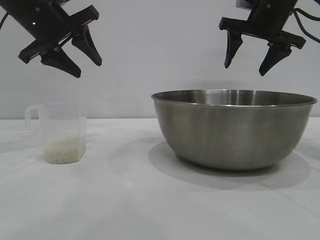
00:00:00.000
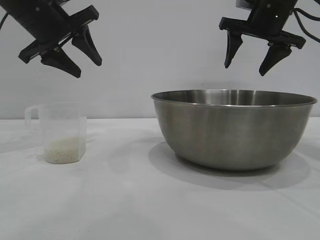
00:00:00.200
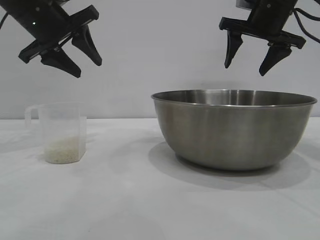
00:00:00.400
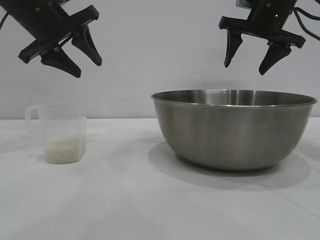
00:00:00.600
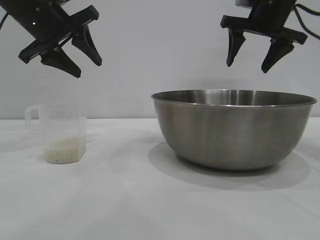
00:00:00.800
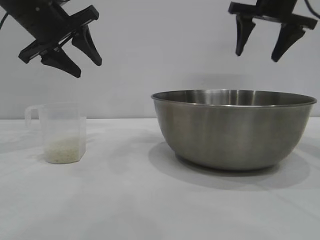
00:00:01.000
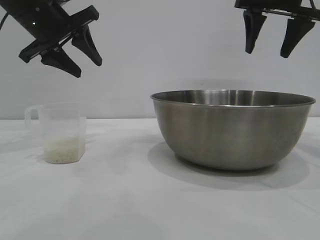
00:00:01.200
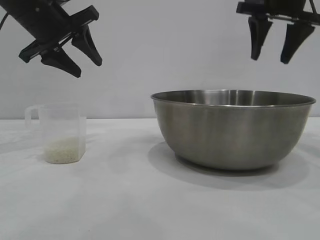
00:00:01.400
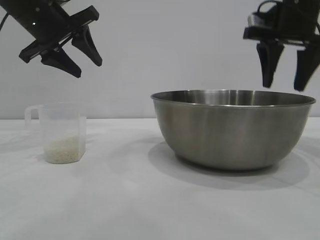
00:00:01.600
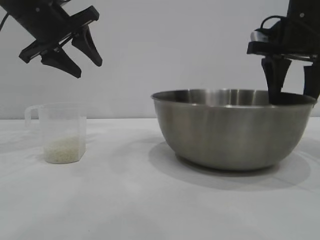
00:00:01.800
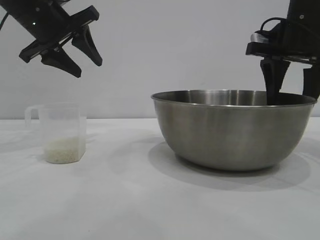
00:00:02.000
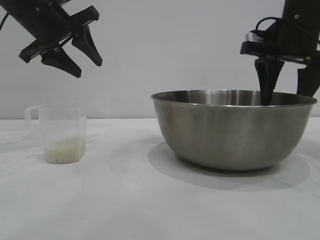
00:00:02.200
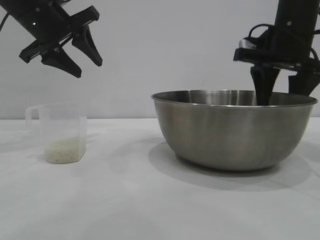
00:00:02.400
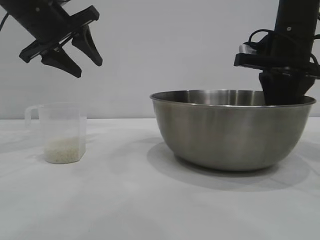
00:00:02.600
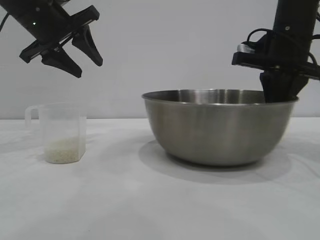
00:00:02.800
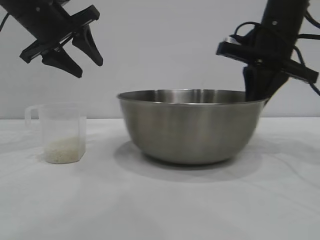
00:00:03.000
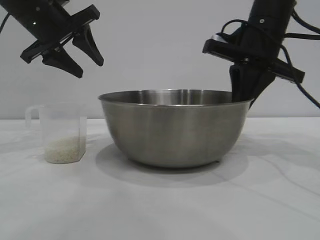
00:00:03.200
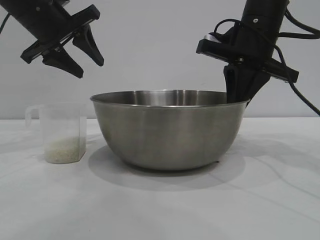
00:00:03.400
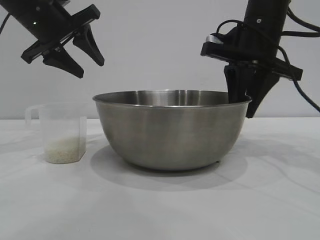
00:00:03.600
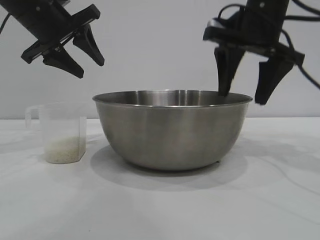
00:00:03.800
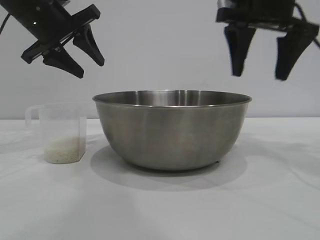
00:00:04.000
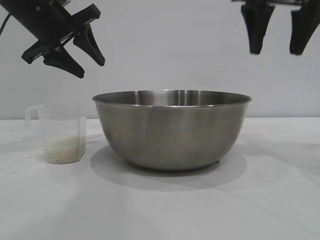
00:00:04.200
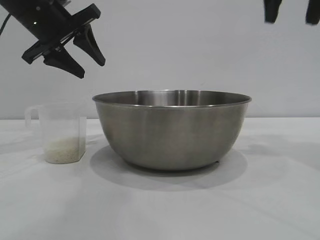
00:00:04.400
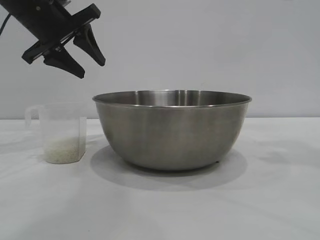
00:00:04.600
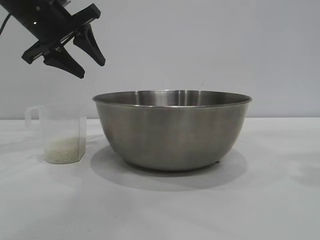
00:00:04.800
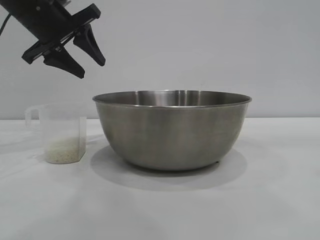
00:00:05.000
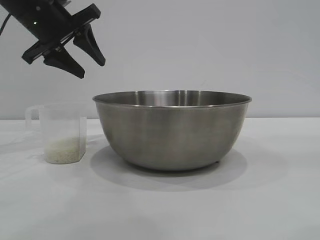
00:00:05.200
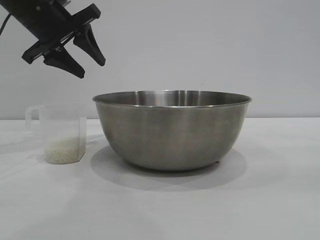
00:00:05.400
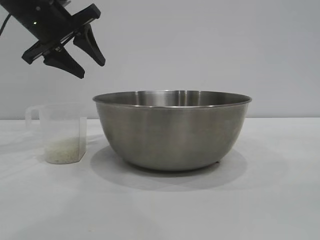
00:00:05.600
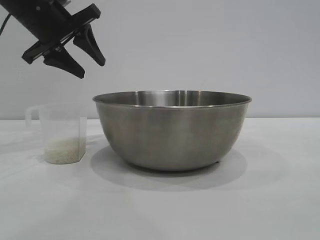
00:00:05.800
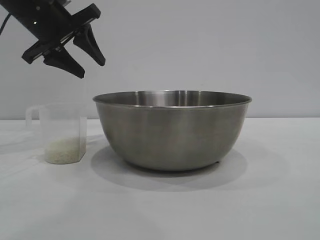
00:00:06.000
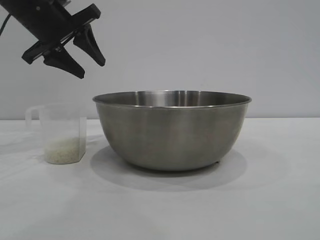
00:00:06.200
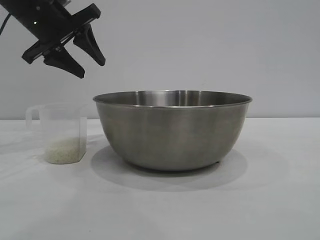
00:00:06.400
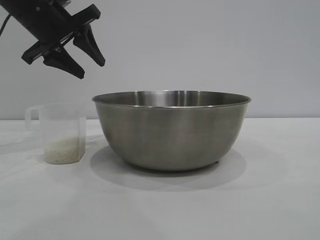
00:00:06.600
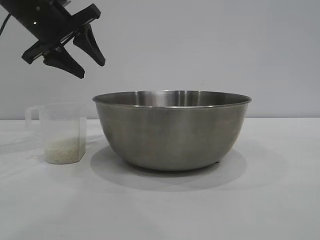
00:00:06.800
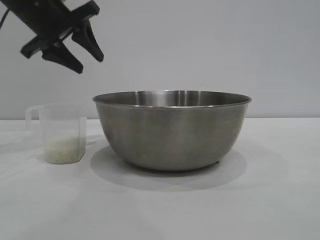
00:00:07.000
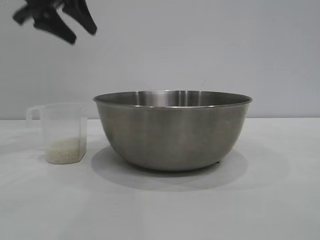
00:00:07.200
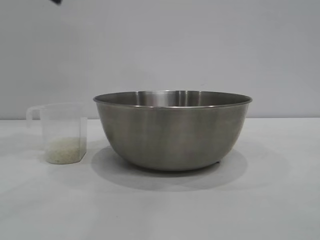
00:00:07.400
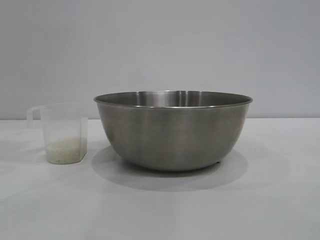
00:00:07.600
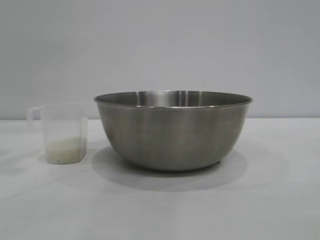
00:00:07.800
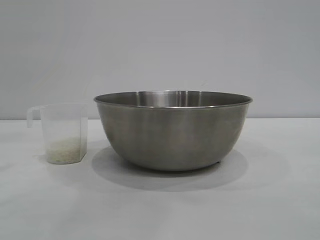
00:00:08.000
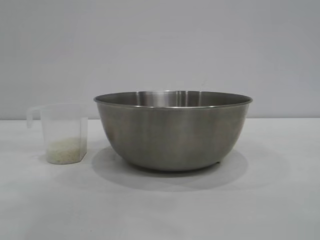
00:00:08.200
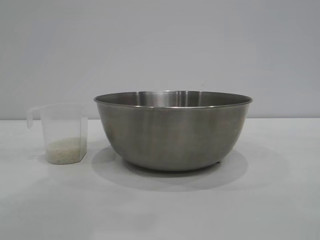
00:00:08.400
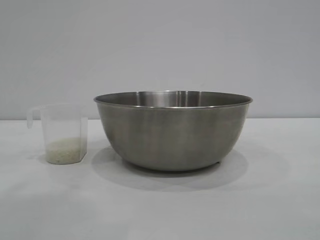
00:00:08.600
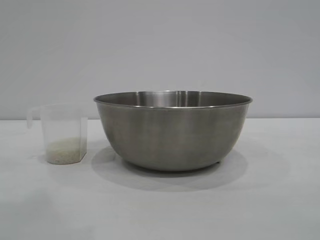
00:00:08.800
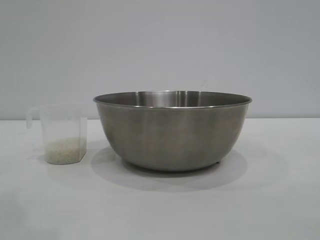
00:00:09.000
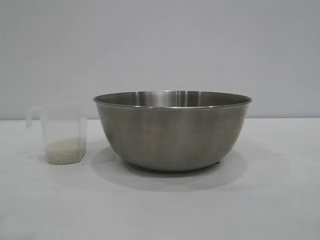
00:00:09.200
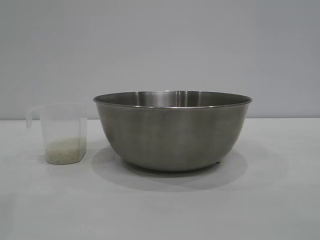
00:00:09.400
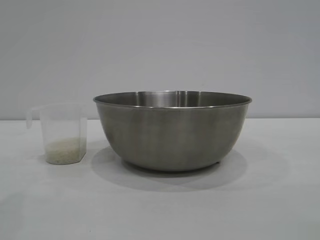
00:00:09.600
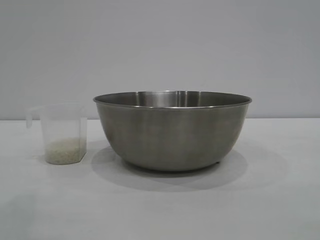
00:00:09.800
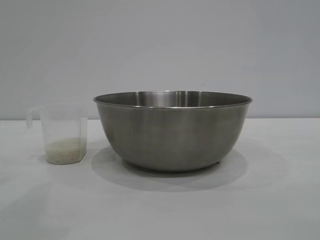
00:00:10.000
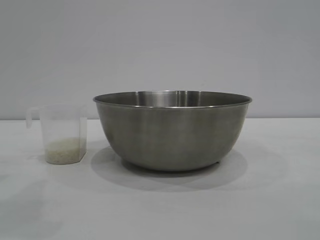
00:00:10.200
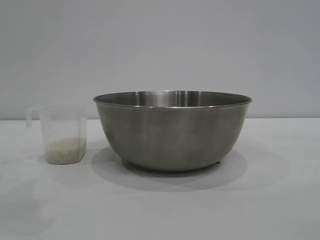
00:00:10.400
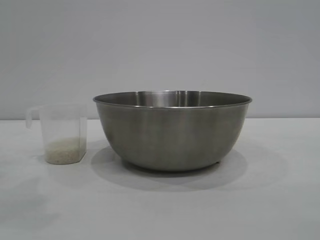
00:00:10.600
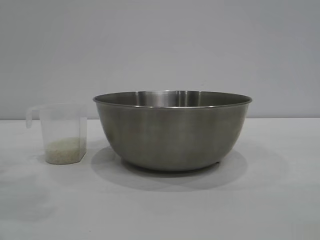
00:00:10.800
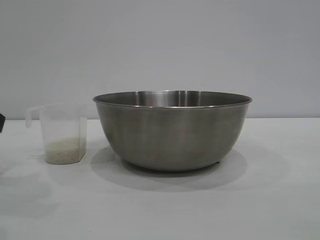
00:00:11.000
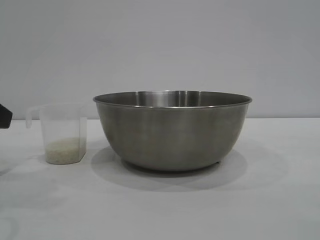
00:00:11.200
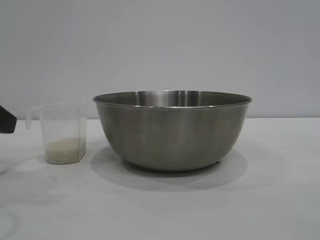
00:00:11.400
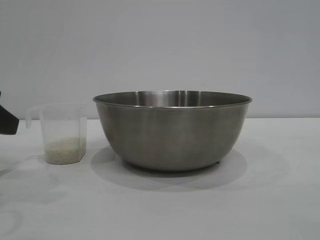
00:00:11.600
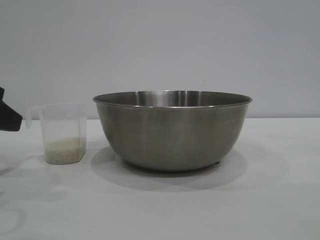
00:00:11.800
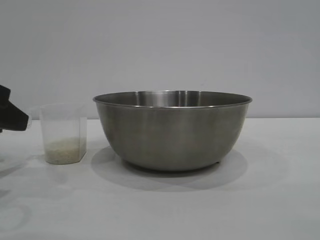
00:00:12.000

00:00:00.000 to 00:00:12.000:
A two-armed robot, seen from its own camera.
Task of the whole recording: the right gripper grasp the rice container and place it in the center of the table, the left gripper grasp the rice scoop and pour the rice into the rice container.
Step, 00:00:00.000 to 00:00:04.000: Move the bowl to the center of view with the right gripper.

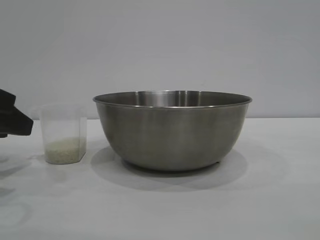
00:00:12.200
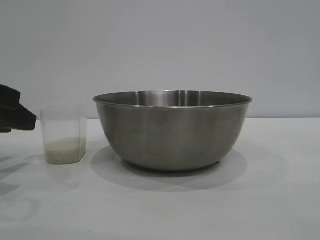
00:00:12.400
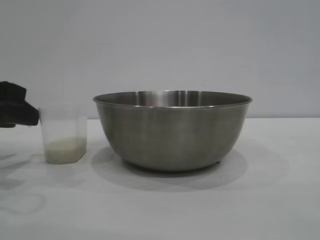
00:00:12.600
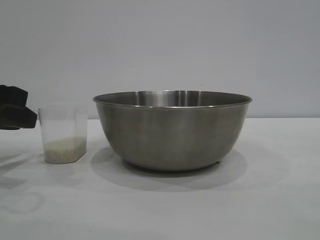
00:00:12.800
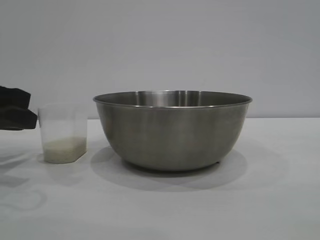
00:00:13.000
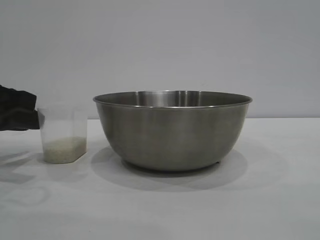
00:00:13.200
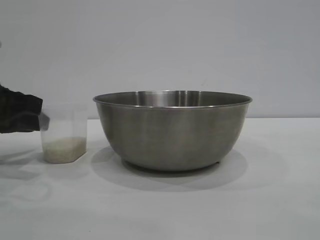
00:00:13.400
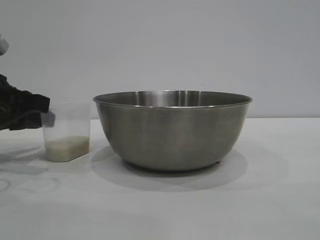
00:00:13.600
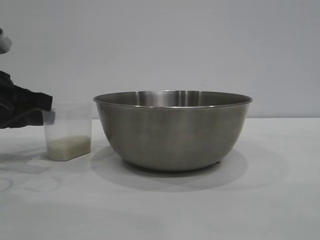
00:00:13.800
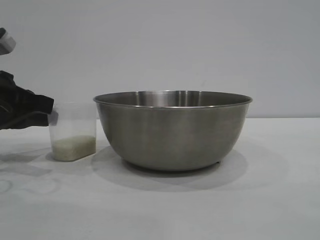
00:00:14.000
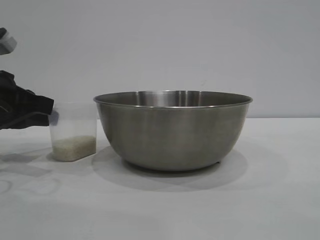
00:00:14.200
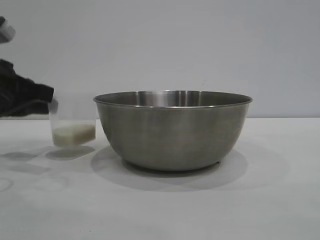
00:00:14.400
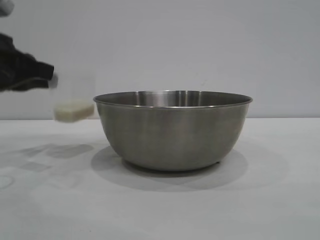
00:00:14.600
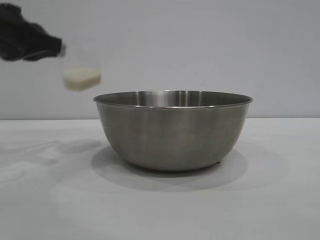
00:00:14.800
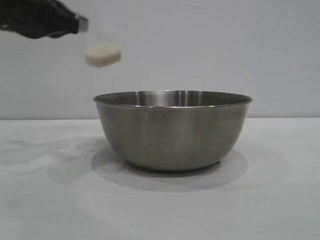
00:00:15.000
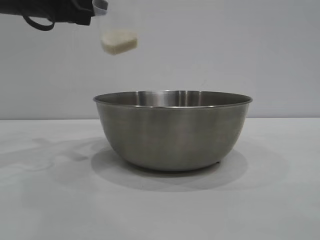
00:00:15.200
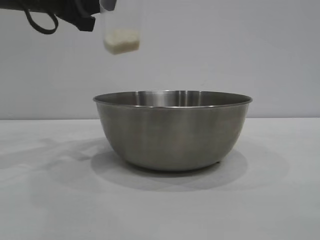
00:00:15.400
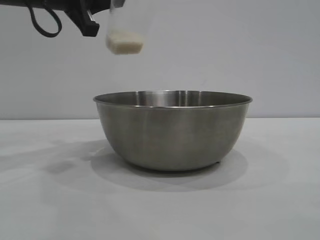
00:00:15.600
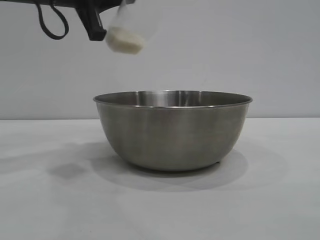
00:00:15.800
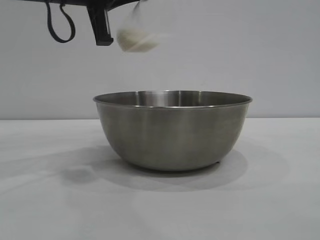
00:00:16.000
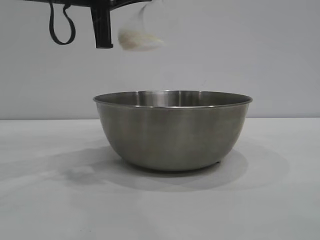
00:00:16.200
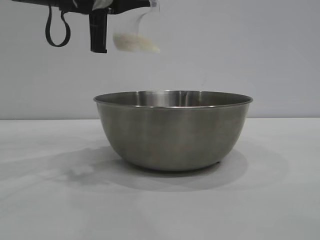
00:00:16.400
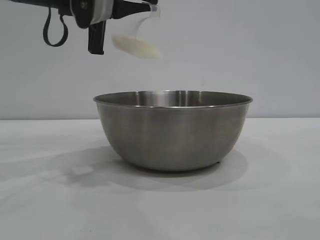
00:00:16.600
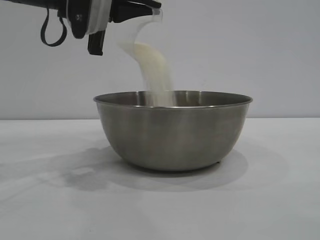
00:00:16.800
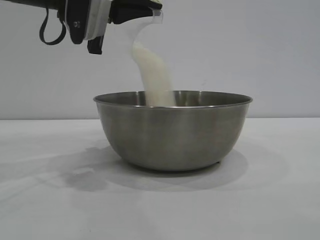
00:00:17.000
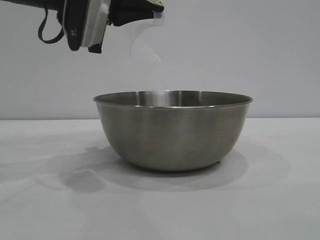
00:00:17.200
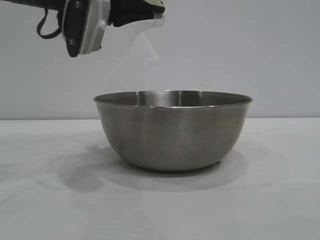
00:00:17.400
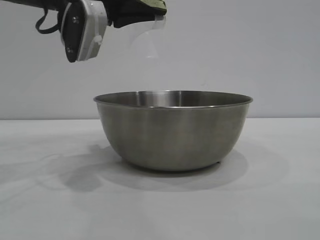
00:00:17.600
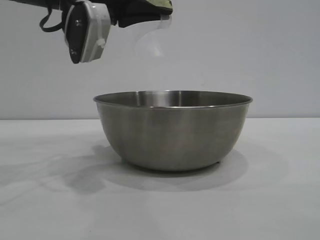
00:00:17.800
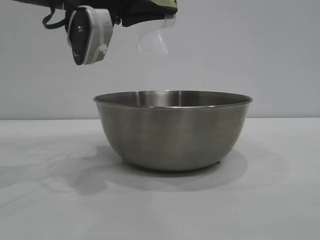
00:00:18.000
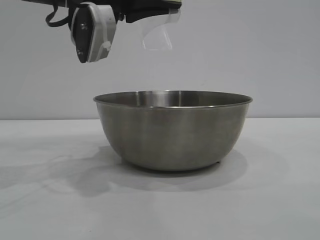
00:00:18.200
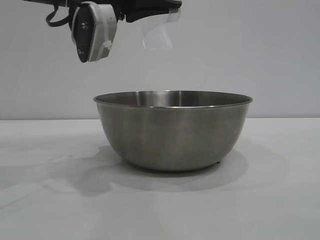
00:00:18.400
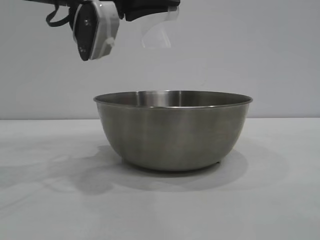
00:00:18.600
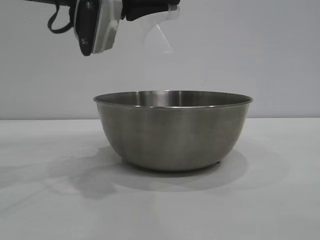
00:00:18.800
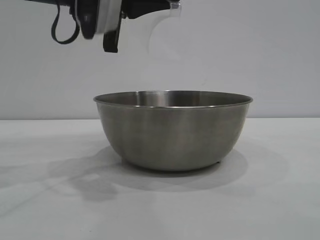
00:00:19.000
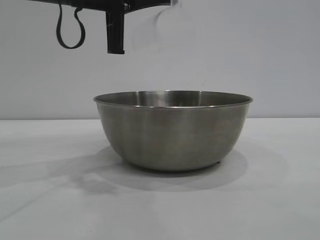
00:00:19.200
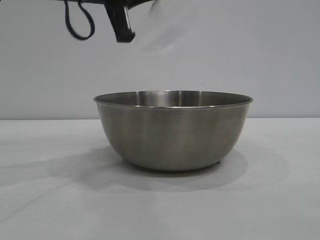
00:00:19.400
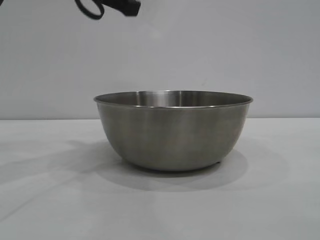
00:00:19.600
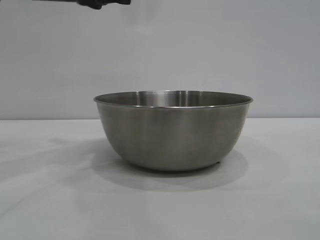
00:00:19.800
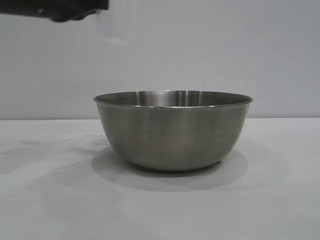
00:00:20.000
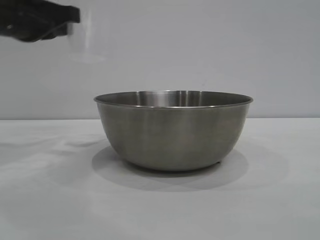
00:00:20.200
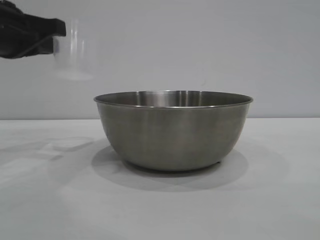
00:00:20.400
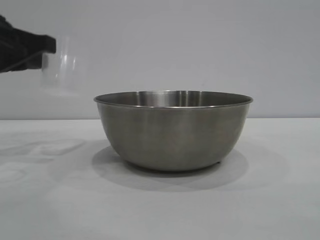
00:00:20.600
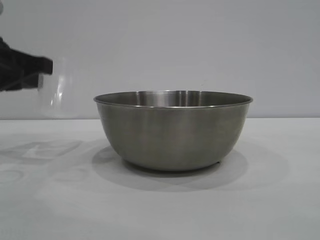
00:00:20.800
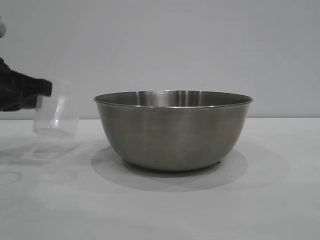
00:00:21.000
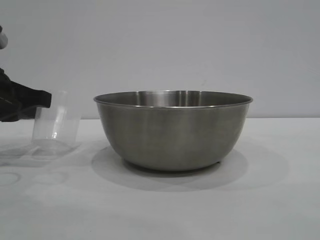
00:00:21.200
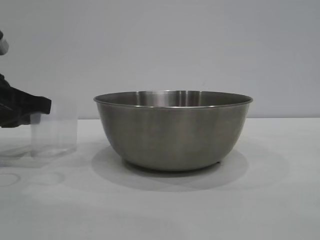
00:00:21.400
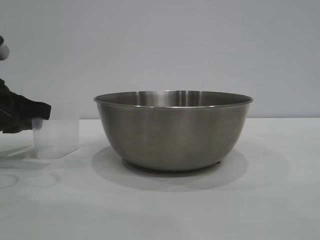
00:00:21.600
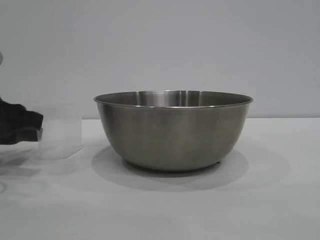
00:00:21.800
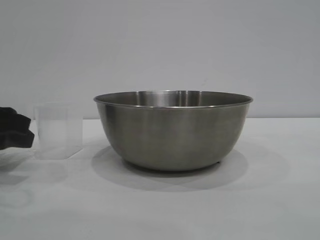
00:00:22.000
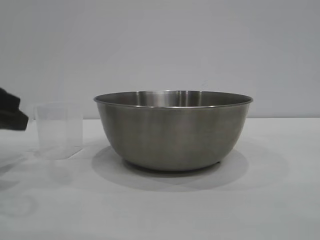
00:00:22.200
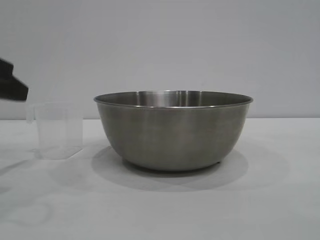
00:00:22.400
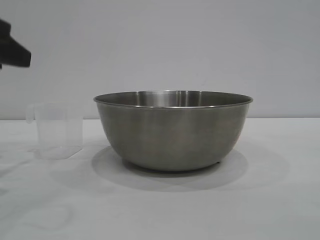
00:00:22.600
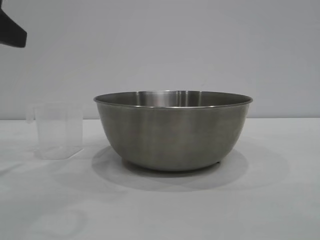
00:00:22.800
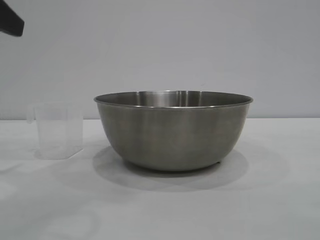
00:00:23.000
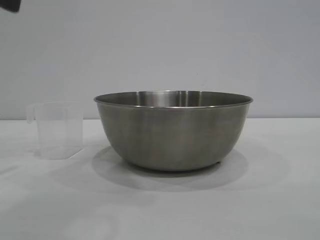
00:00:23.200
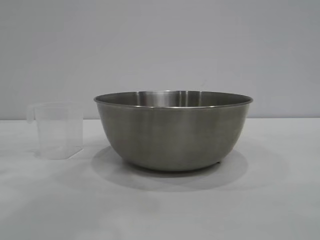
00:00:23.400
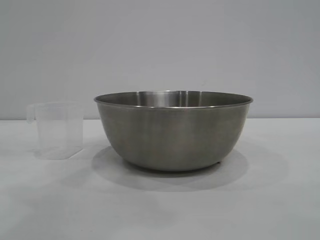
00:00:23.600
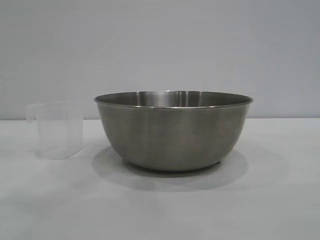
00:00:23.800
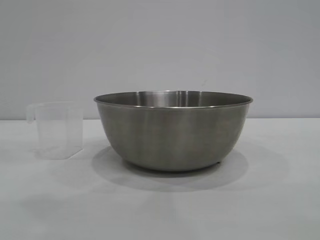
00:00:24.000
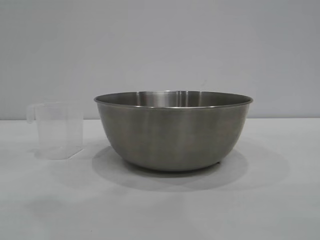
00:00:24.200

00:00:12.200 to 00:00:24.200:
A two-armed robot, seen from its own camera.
Task of the whole recording: the right gripper grasp the rice container and place it in the center of the table, the left gripper grasp the rice scoop and pour the rice into the rice container.
Step, 00:00:12.200 to 00:00:14.400: Pick up the cup with rice in it with the left gripper.
Step, 00:00:14.600 to 00:00:19.200: Pour the rice from the cup into the bowl with the left gripper.
Step, 00:00:19.400 to 00:00:22.000: Place the cup on the table with the left gripper.
